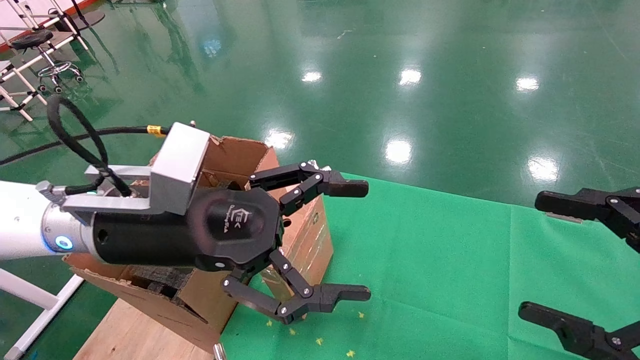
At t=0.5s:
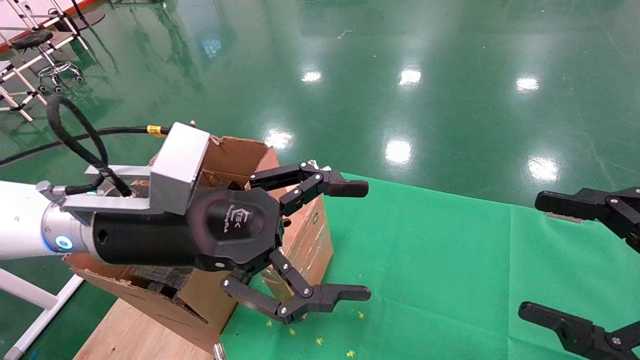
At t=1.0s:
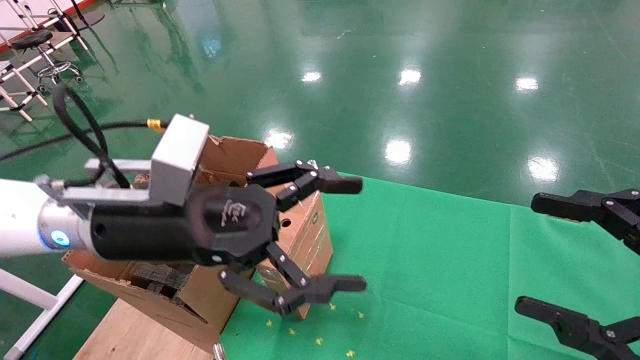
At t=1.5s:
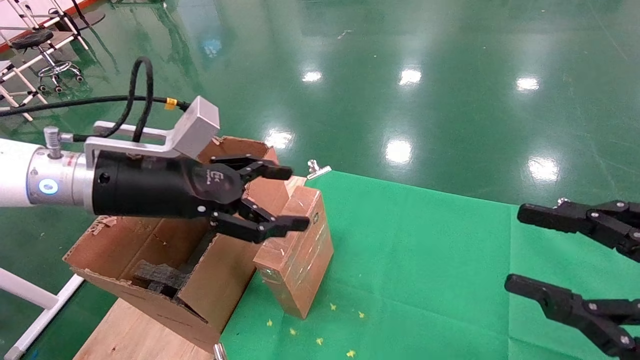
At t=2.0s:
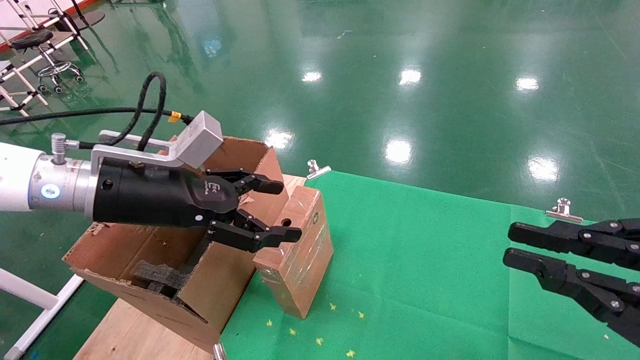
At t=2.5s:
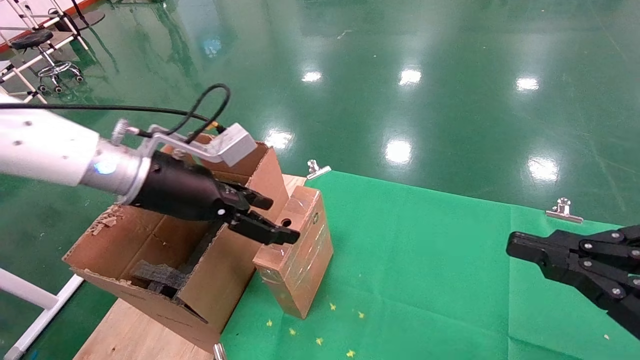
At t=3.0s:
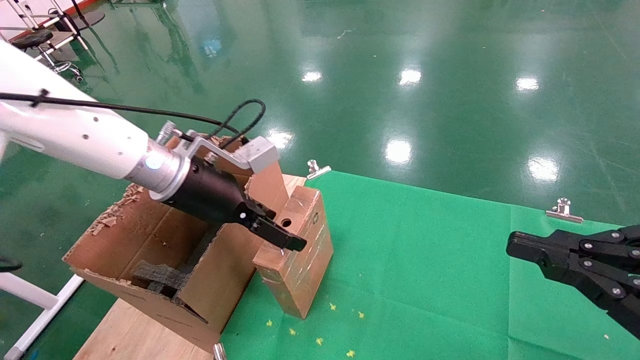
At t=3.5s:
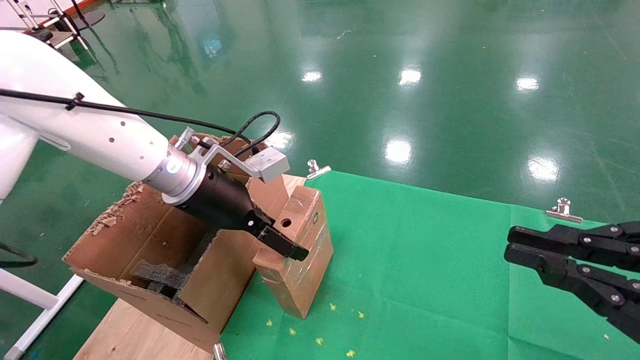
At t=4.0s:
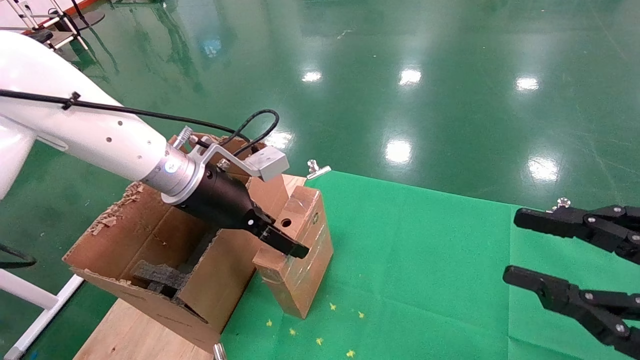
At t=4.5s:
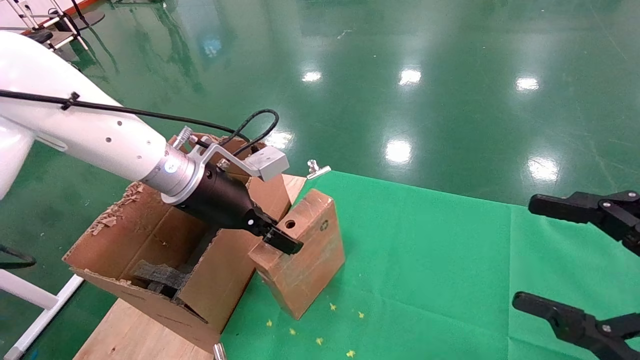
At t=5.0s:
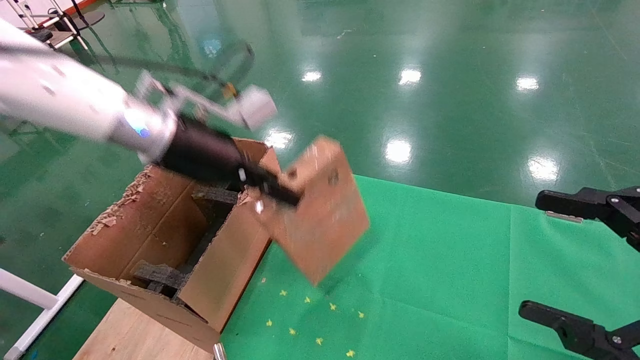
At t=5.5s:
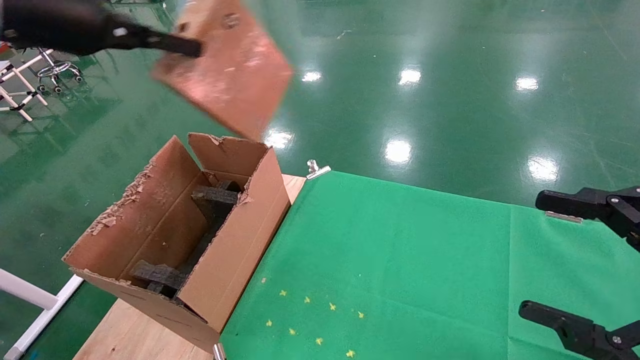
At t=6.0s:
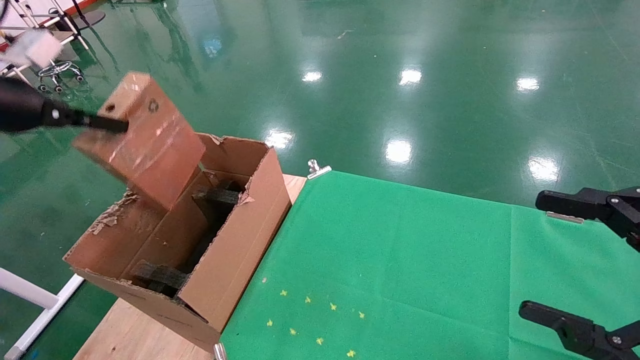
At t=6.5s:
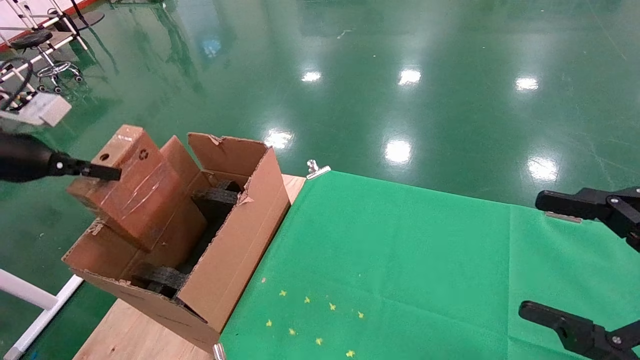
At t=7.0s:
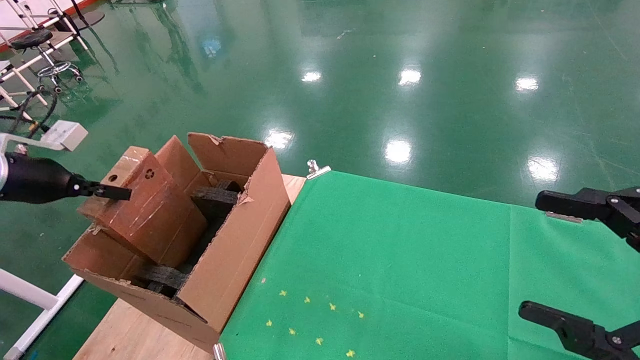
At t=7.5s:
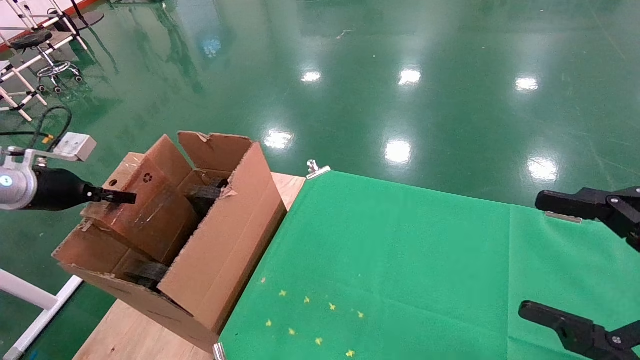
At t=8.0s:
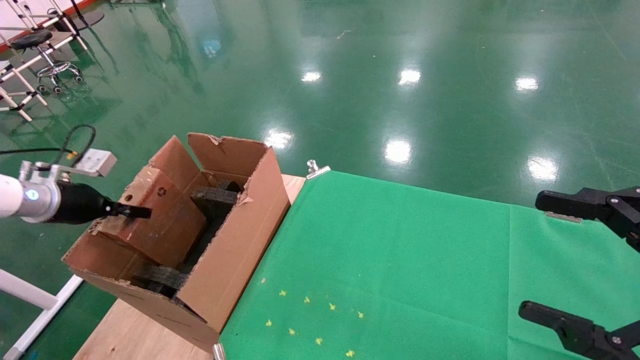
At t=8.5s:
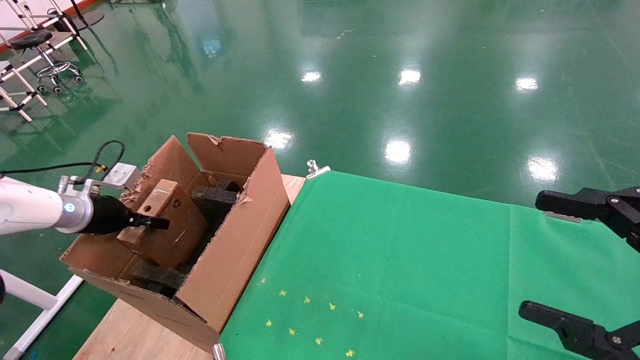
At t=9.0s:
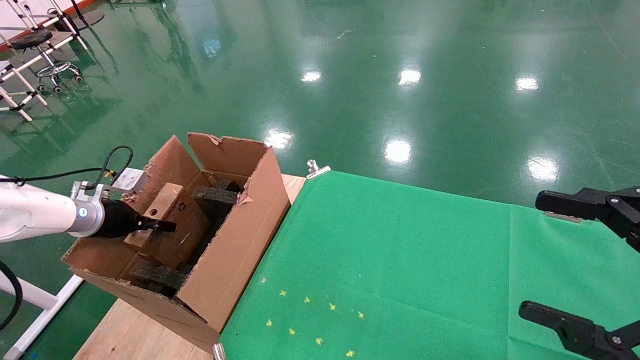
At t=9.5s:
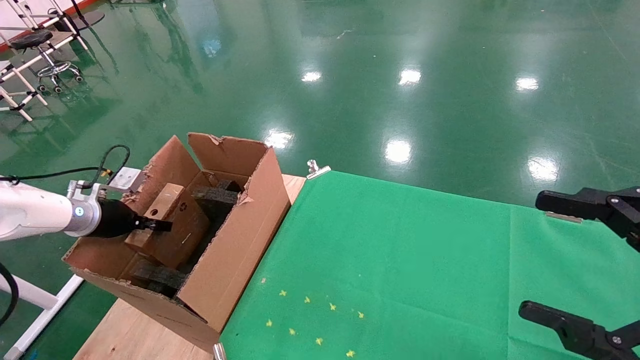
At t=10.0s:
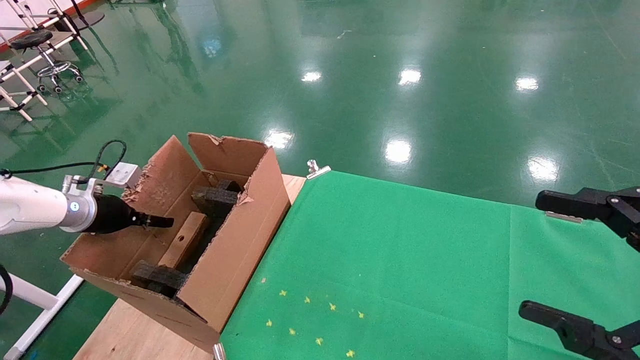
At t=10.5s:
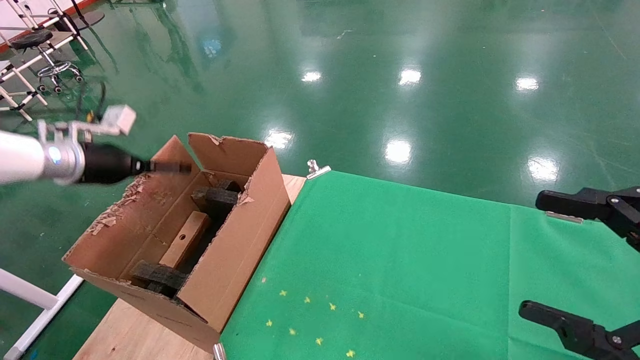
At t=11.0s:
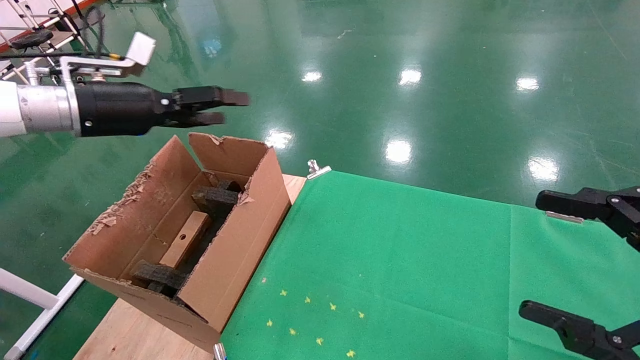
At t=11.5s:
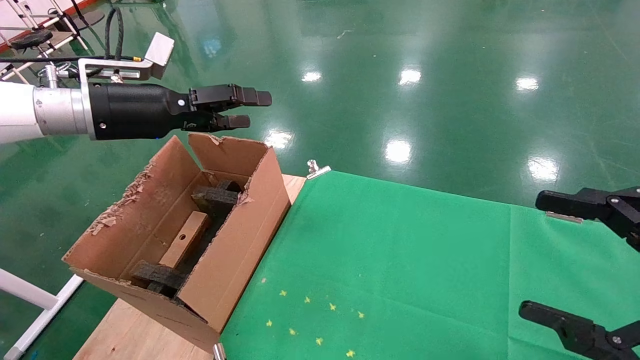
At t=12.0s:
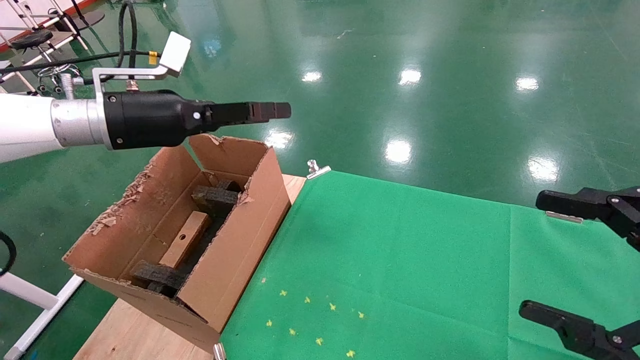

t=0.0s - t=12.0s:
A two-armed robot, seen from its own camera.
Task of the whole recording: using a robotic arm to pick up a cardboard box and palace it the carton.
Step, t=1.5s - t=4.5s: Pick up the mouse and the power cord paper box.
Step, t=5.0s - t=10.5s: Place the mouse and the power cord paper box into the container.
t=0.0s - t=2.0s: The right gripper closes. Meanwhile the left gripper goes approximately 5 cm to the left.
t=2.0s - t=4.0s: The left gripper travels forward by about 5 cm.
t=4.0s - t=6.0s: The left gripper heads to the left and upward, covering about 30 cm, and closes its fingers; the right gripper opens.
t=6.0s - t=8.0s: The left gripper moves downward and forward, some 20 cm.
t=8.0s - t=10.0s: The left gripper opens up.
t=10.0s - t=12.0s: The left gripper moves to the right and upward, about 25 cm, and opens.

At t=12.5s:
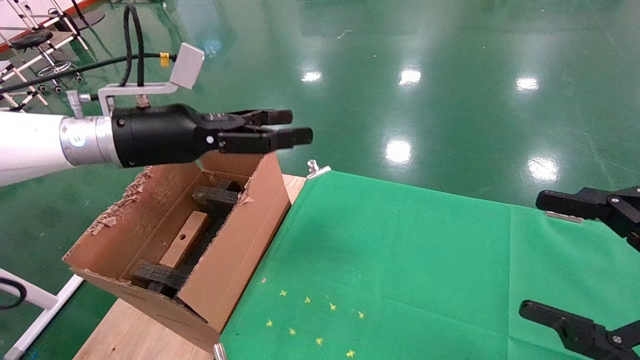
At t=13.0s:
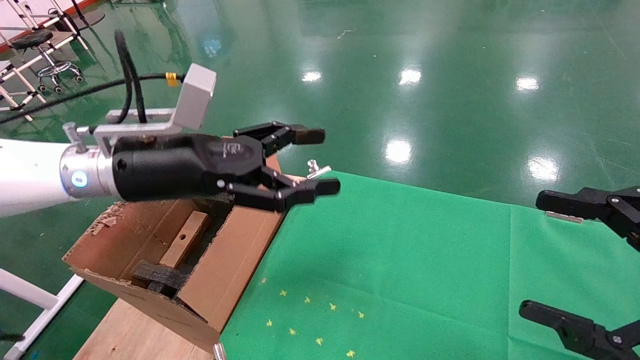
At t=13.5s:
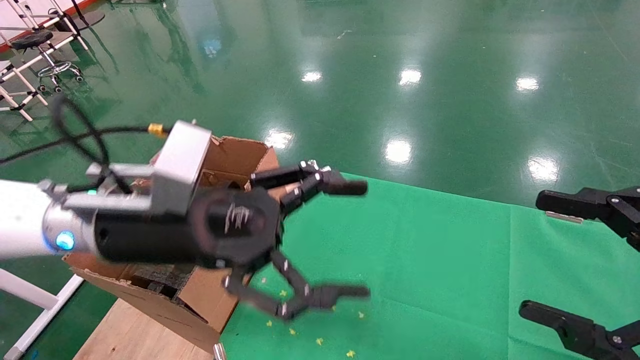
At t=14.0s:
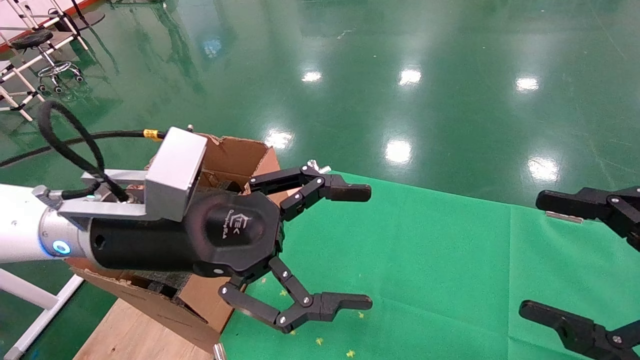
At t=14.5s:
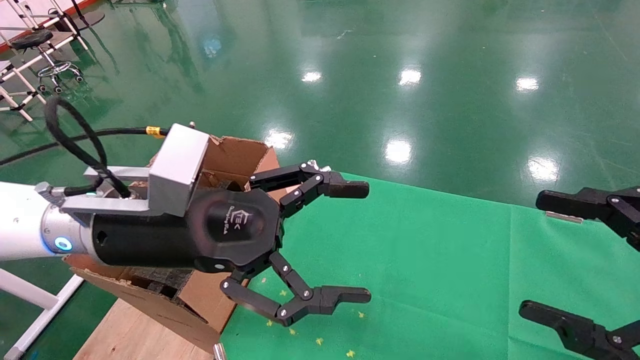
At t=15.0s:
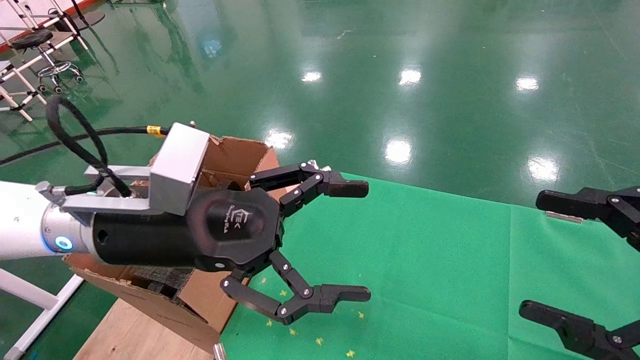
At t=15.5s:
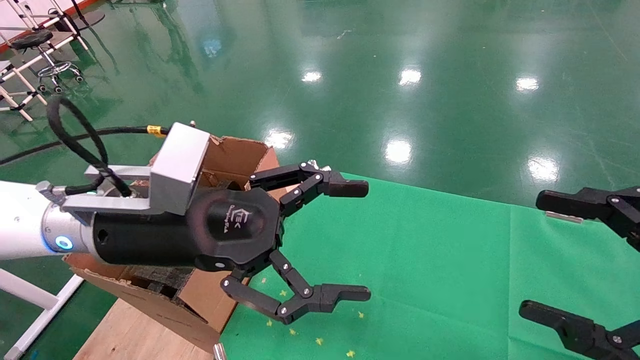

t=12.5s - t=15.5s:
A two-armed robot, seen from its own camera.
Task of the whole recording: using a robotic arm to pick up a cardboard box and palace it the carton.
t=12.5s - t=14.0s: The left gripper moves backward, to the right and downward, roughly 15 cm.
t=14.0s - t=15.5s: Neither gripper changes place.
